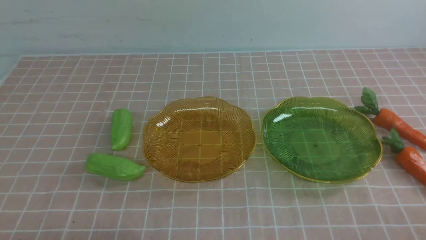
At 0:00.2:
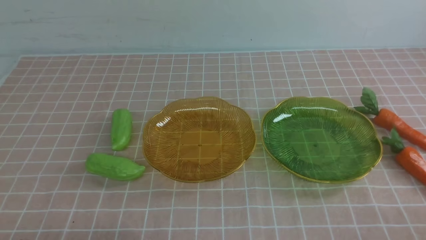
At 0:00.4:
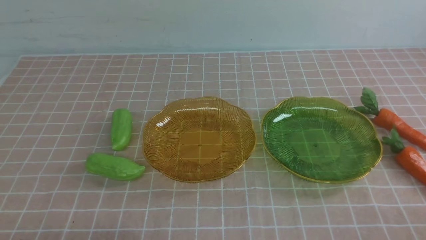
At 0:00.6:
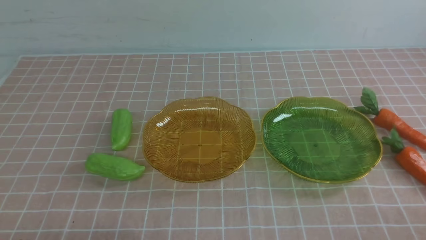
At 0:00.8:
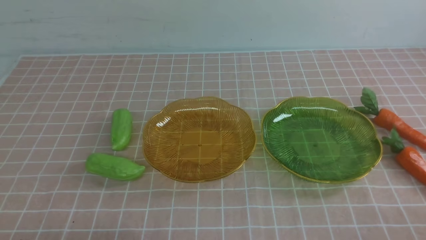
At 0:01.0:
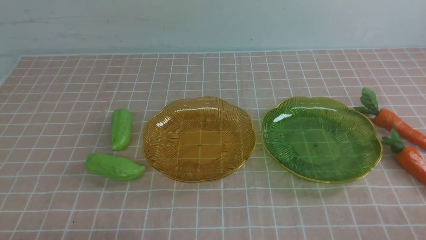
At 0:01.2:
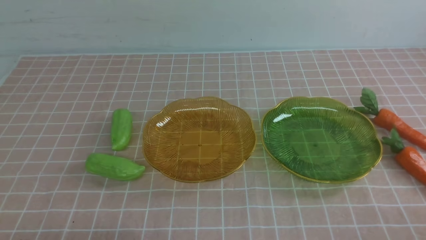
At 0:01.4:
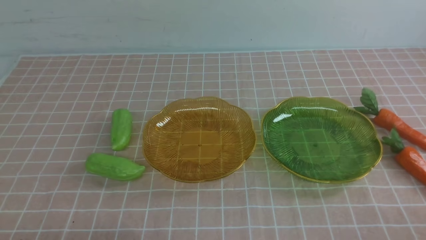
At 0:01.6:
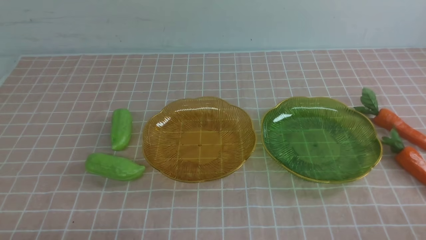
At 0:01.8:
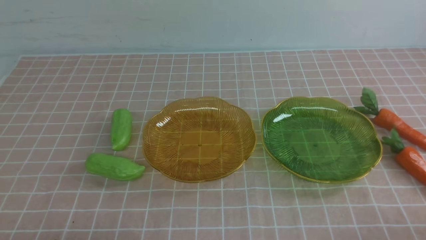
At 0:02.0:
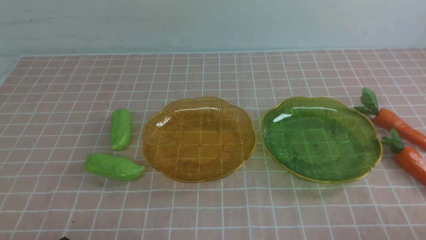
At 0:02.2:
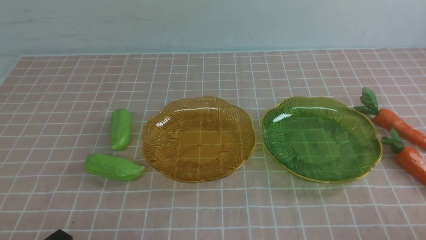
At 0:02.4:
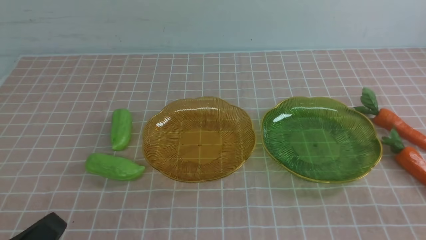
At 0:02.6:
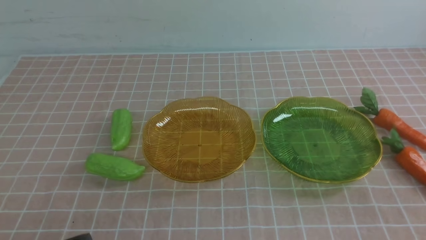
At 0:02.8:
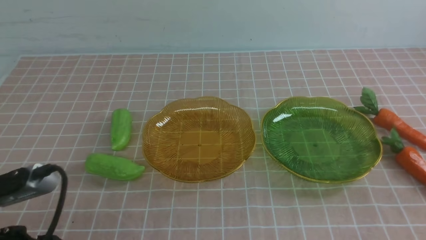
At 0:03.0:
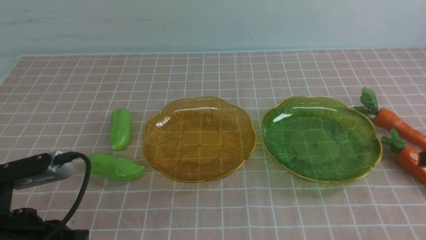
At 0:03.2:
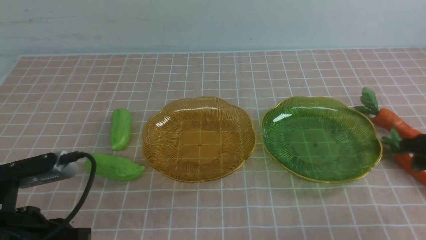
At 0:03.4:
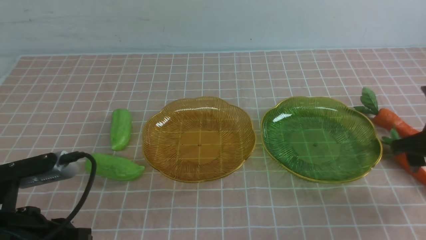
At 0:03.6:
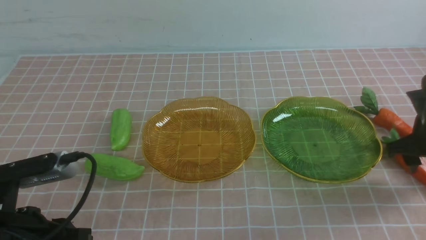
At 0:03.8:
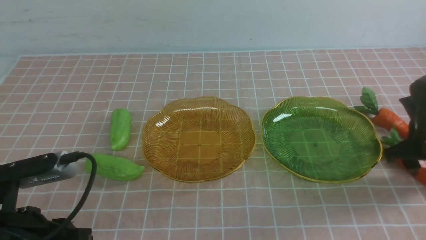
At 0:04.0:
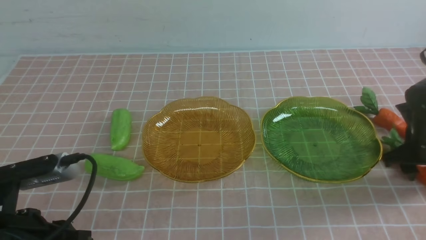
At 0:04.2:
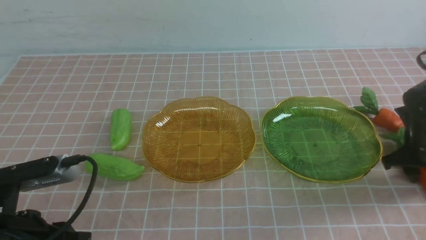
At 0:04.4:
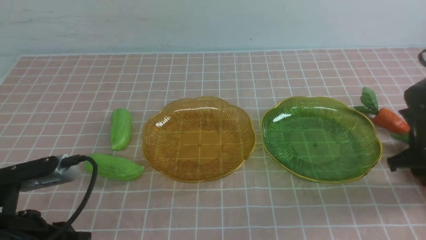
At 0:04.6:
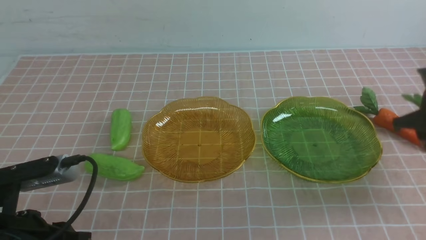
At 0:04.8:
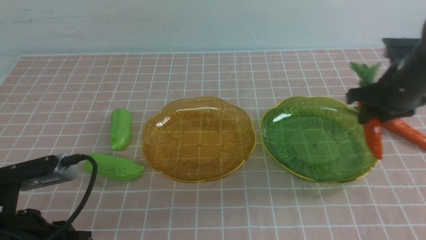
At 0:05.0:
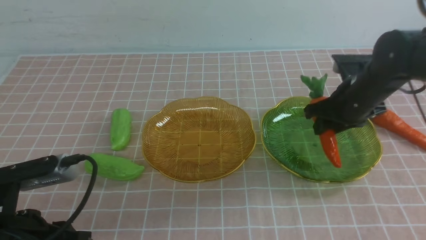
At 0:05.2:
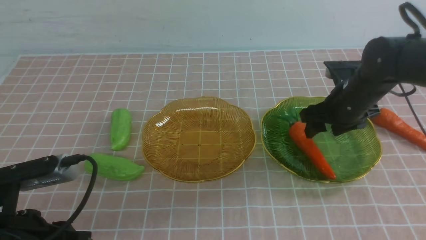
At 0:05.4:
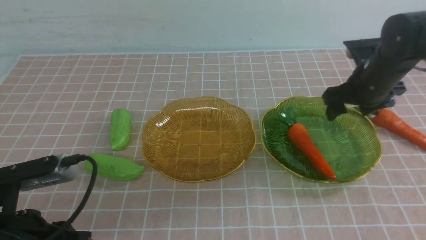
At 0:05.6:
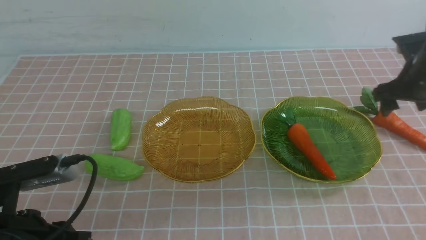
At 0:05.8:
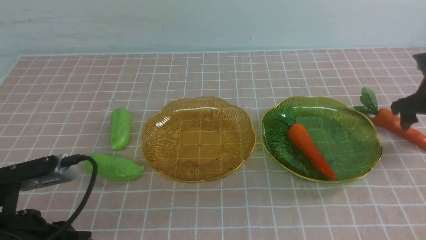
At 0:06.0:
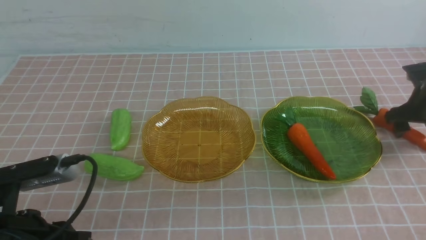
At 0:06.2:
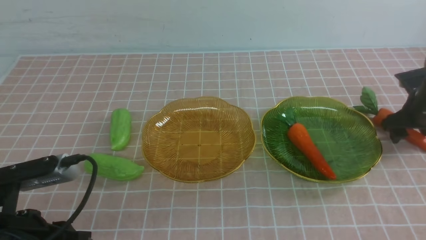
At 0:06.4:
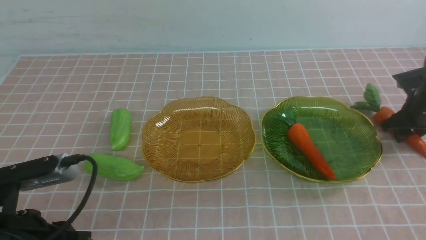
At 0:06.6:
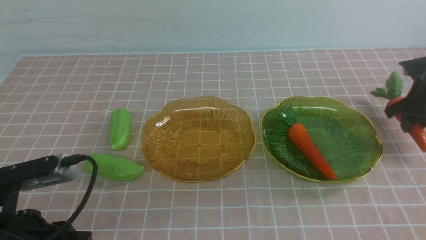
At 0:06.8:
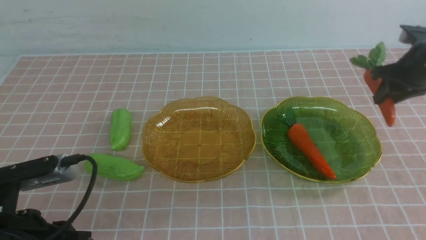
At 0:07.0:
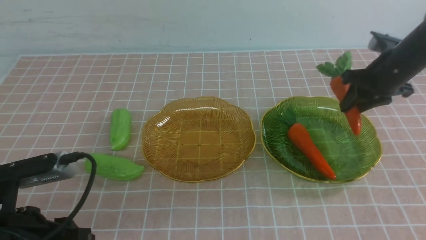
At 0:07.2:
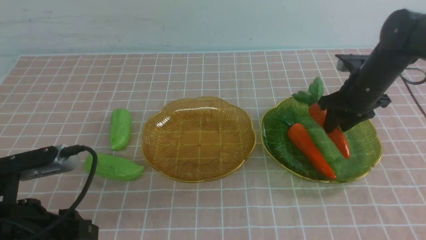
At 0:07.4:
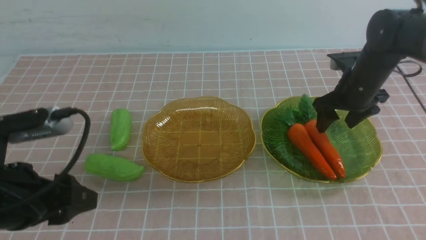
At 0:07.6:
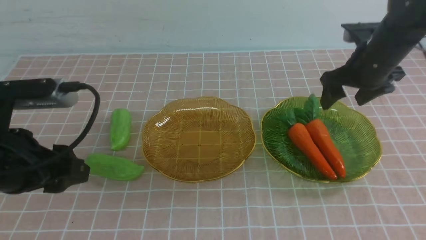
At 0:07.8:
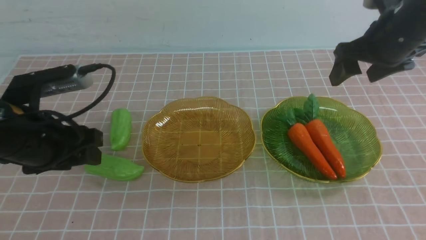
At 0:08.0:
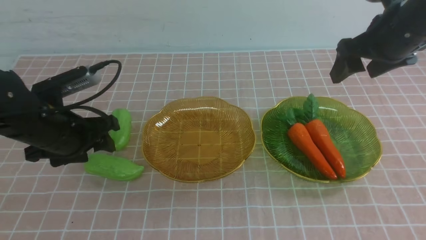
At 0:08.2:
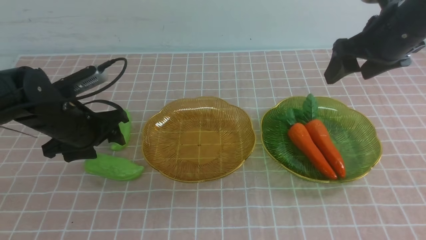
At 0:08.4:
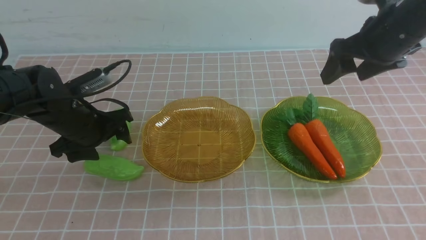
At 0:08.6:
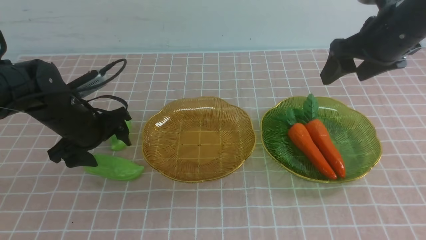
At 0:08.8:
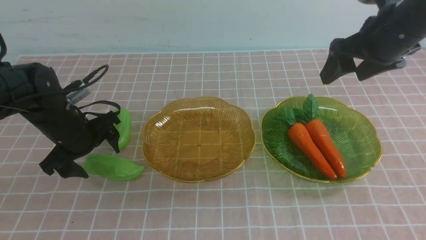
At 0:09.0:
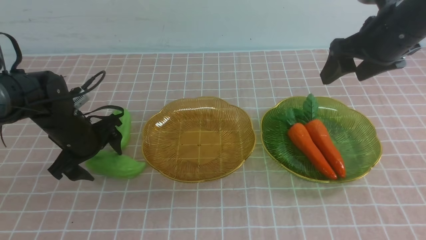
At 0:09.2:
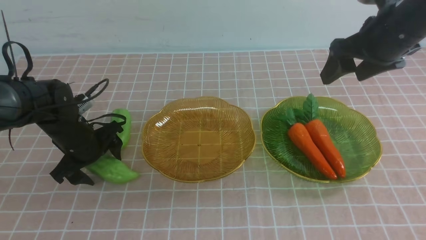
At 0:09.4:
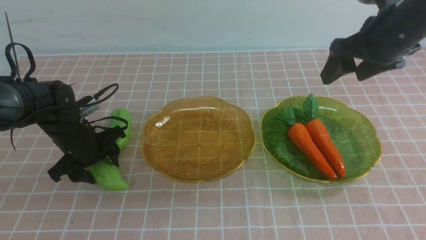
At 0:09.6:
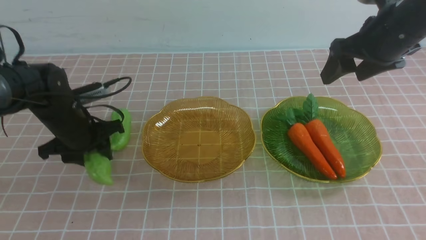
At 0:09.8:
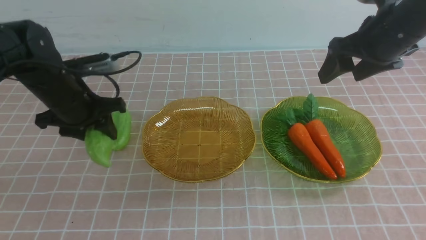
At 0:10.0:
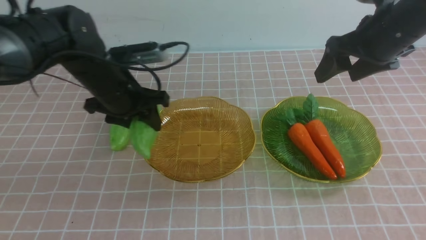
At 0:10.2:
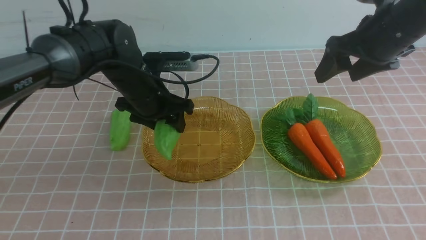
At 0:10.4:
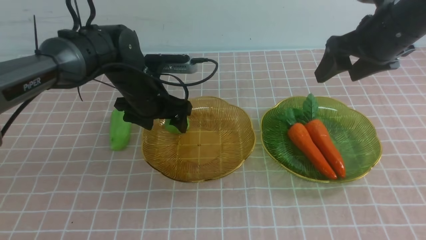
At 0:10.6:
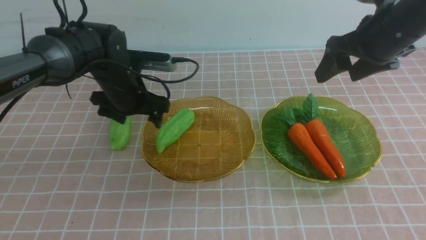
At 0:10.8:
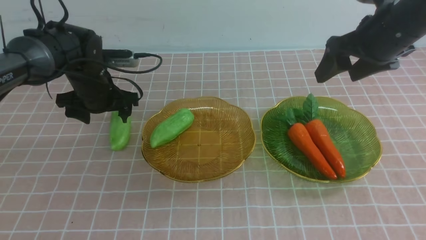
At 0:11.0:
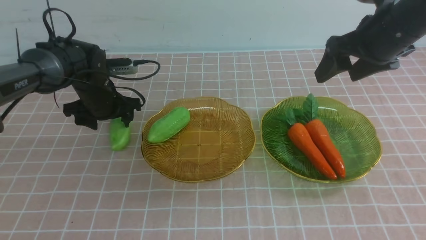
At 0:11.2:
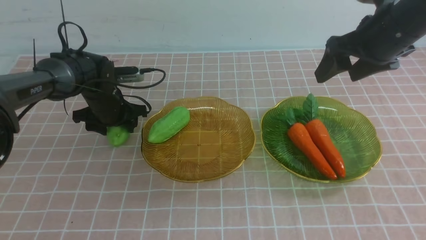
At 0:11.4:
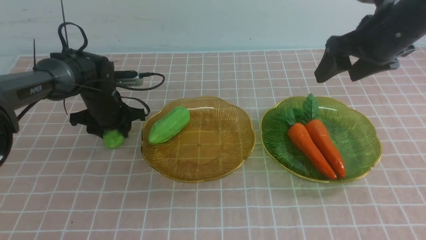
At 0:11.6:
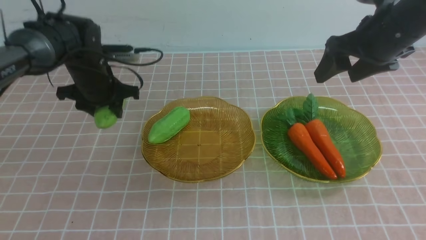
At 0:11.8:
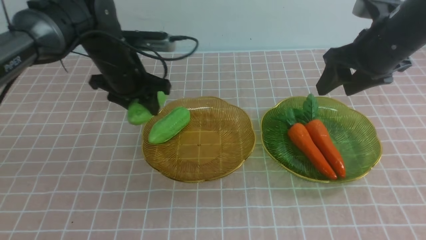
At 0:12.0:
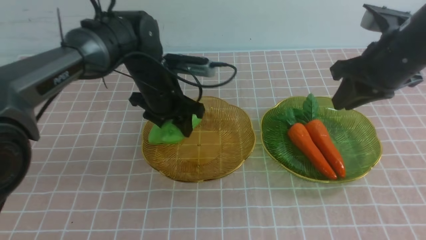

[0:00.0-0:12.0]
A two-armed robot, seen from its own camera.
Step, 0:00.0 to 0:07.4: use the right arm to grab a carrot and put it into the right plate.
0:01.6 to 0:03.0: The left gripper goes roughly 10 cm upward and forward.
0:03.0 to 0:04.4: The right gripper goes roughly 15 cm forward and downward.
0:04.4 to 0:06.0: The right gripper travels forward by approximately 10 cm, goes to the left and returns, about 10 cm each way, and opens its fingers.
0:06.0 to 0:07.6: The right gripper moves to the left and upward, about 15 cm, and closes, then opens again, while the left gripper heads forward and upward, covering approximately 10 cm, and opens.
0:07.6 to 0:09.0: The right gripper is displaced upward by some 5 cm; the left gripper travels forward and downward by roughly 20 cm.
0:09.0 to 0:10.4: The left gripper shifts about 10 cm to the right, forward and upward, and closes, then reopens.
0:10.4 to 0:12.0: The left gripper moves to the right, about 10 cm. The right gripper shifts approximately 20 cm backward, and closes up.

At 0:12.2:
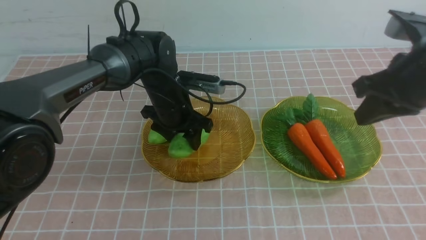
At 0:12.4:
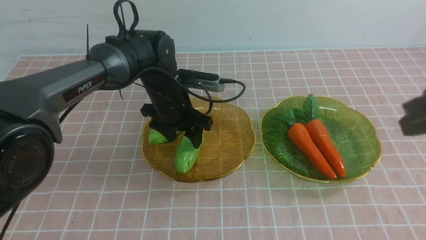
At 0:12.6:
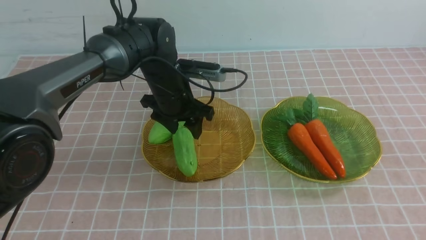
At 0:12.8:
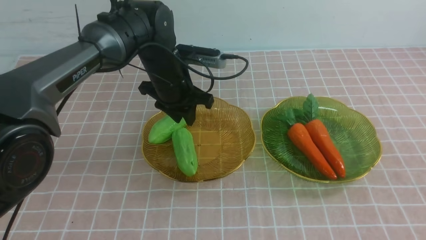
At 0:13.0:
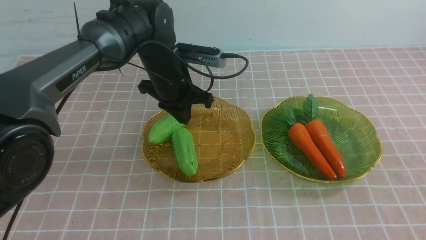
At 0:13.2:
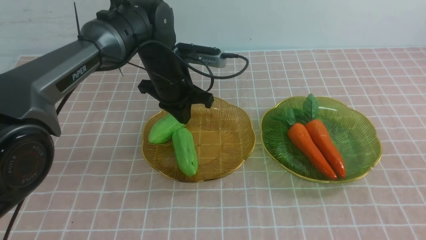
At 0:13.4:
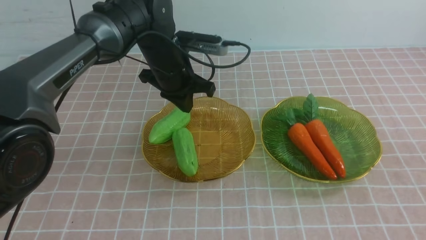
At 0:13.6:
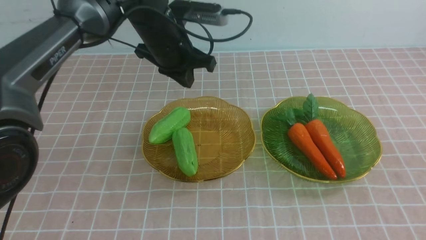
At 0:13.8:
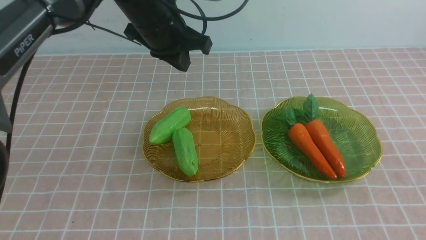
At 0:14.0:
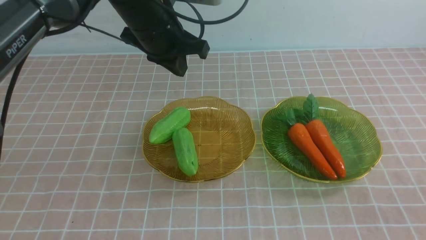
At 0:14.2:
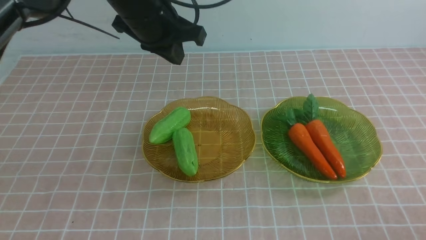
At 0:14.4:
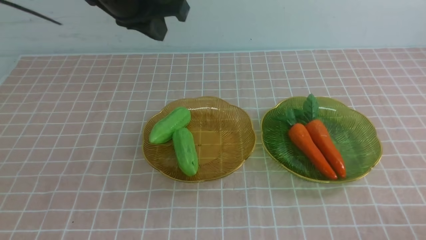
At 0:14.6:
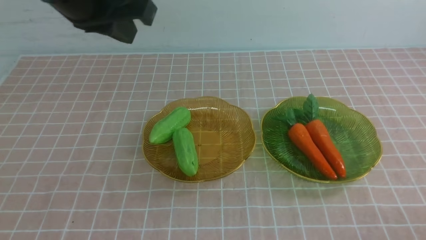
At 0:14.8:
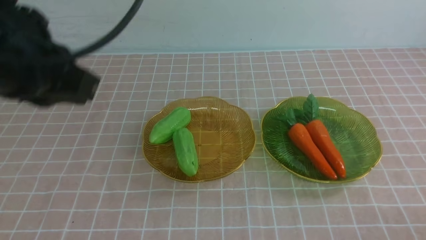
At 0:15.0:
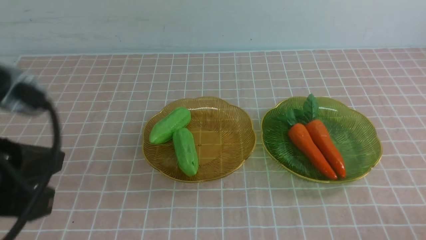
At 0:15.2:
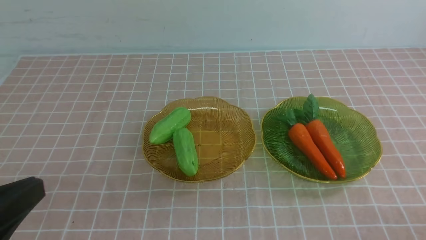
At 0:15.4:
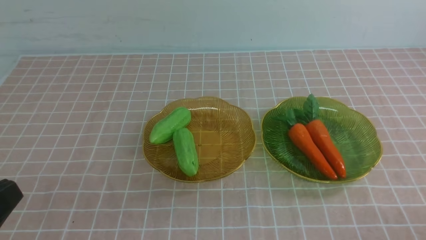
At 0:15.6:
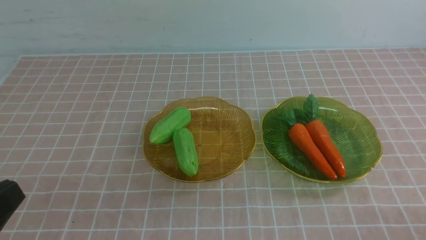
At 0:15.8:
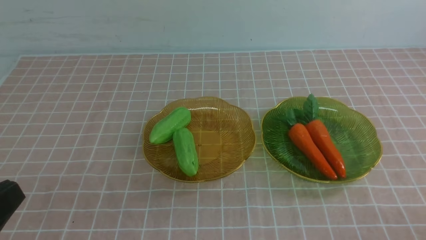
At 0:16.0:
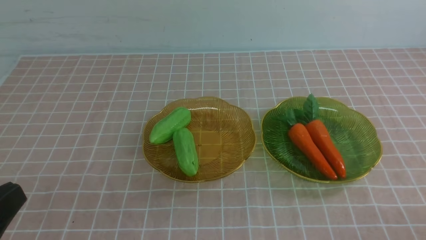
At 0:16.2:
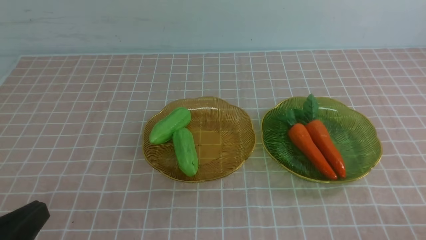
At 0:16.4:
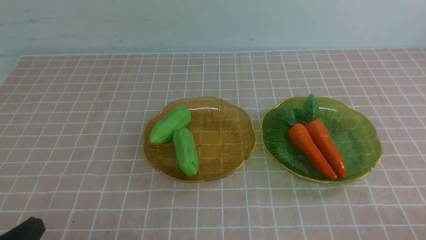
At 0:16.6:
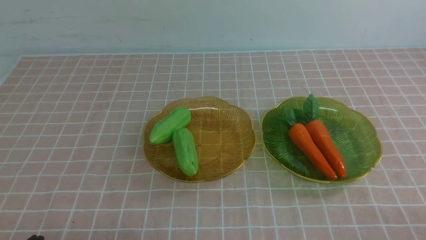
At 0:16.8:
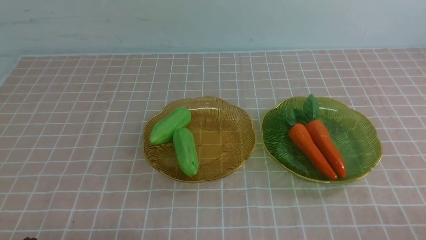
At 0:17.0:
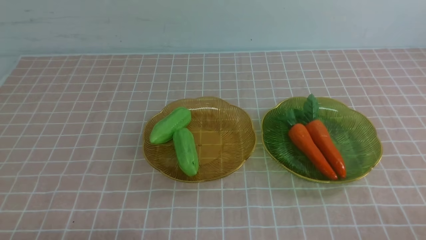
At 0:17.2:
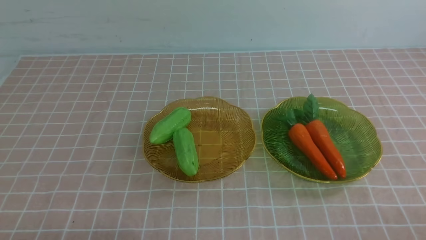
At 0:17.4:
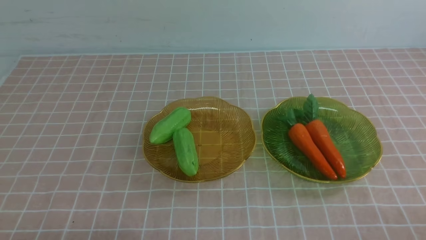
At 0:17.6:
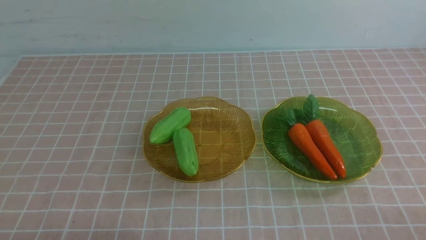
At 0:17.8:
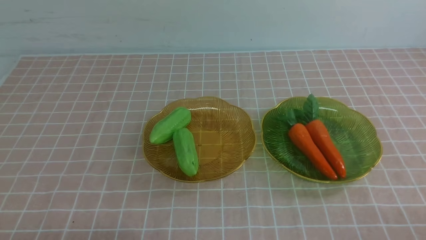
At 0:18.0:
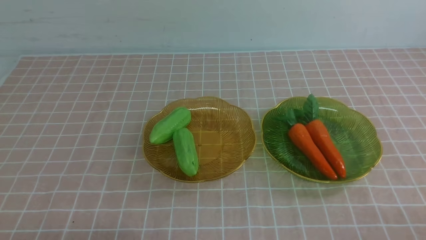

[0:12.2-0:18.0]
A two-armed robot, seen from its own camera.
0:12.2 to 0:13.6: The left gripper travels upward by about 15 cm, and closes up; the right gripper shifts roughly 10 cm downward and backward.
0:13.6 to 0:15.0: The left gripper travels backward by some 35 cm. The right gripper heads downward, covering some 5 cm.
0:15.0 to 0:16.6: The left gripper travels downward by roughly 15 cm.
0:16.6 to 0:18.0: Both grippers stay about where they are.
